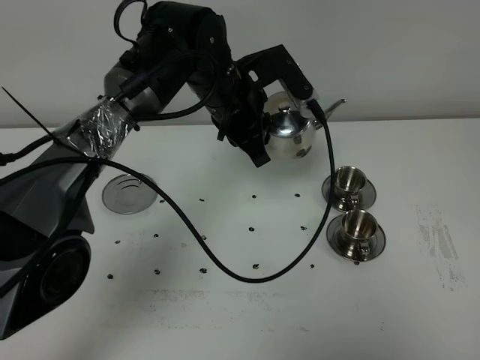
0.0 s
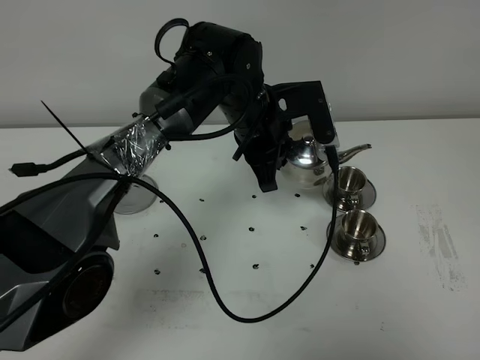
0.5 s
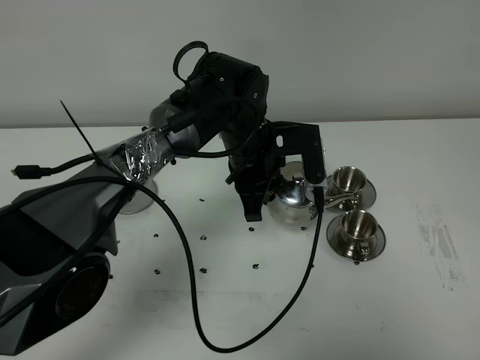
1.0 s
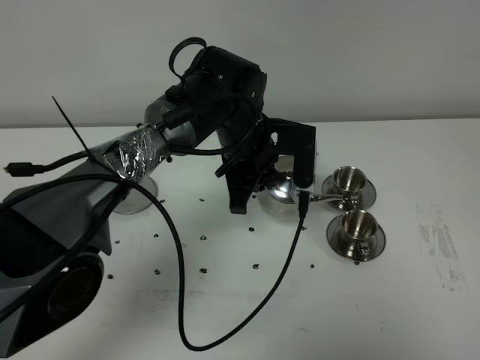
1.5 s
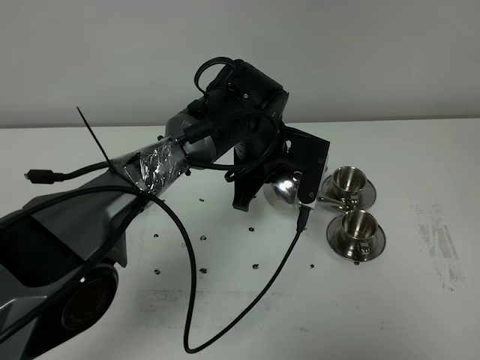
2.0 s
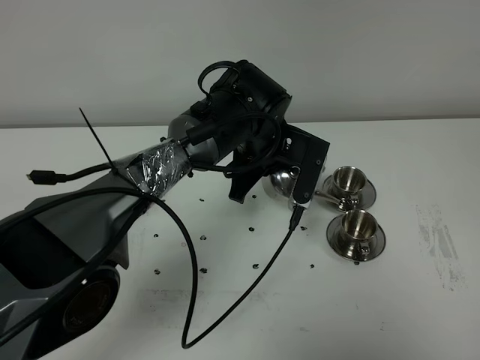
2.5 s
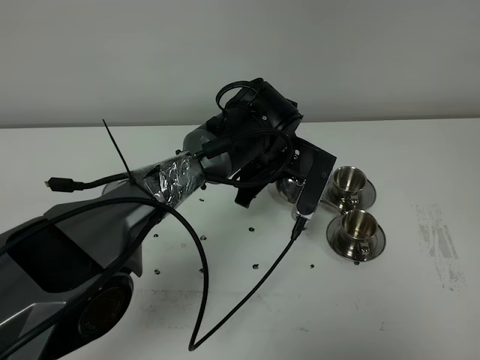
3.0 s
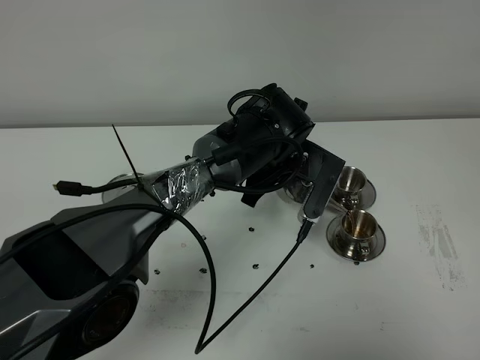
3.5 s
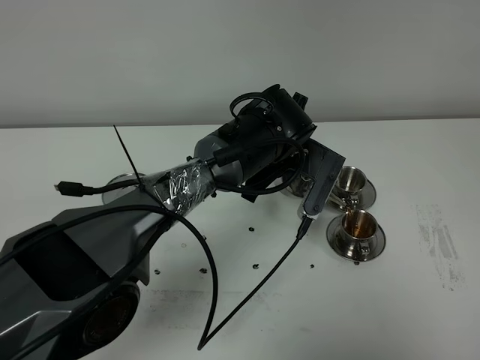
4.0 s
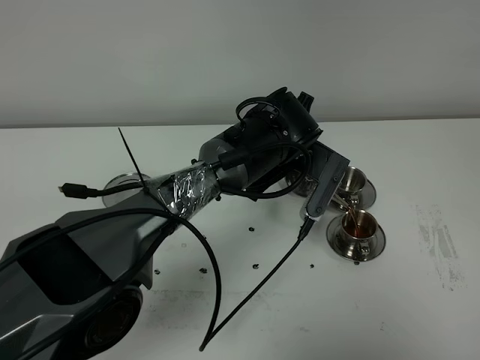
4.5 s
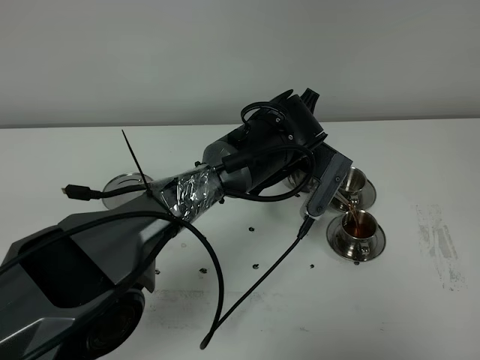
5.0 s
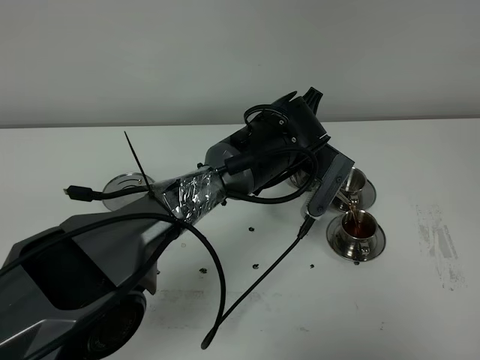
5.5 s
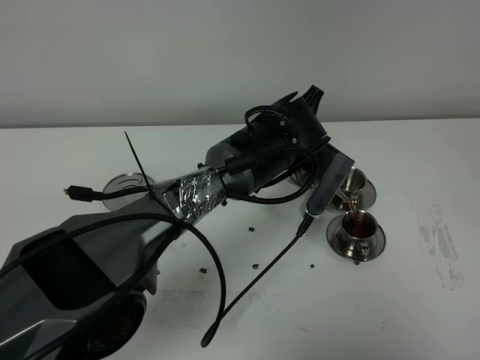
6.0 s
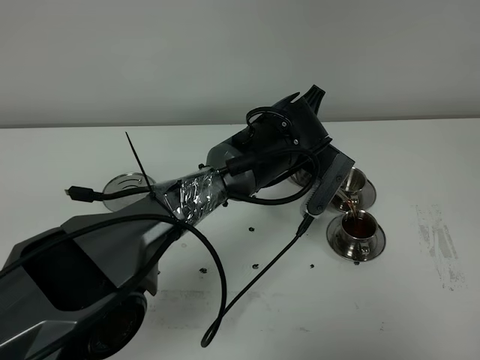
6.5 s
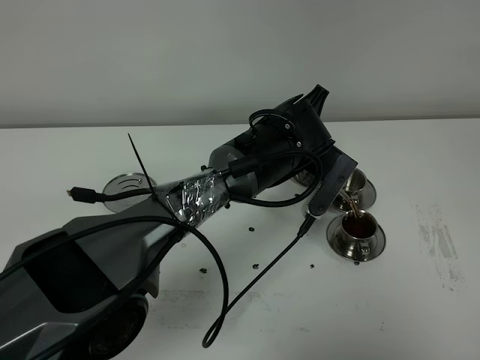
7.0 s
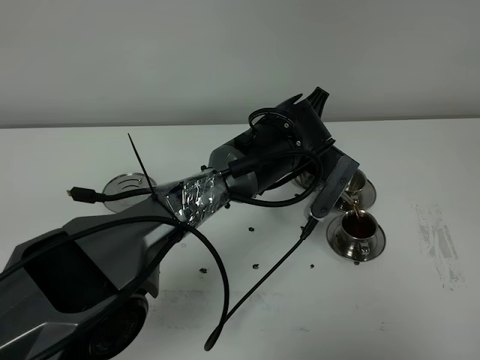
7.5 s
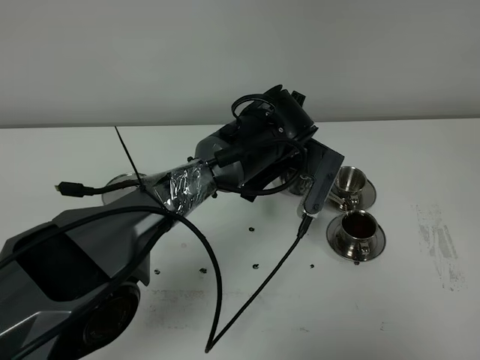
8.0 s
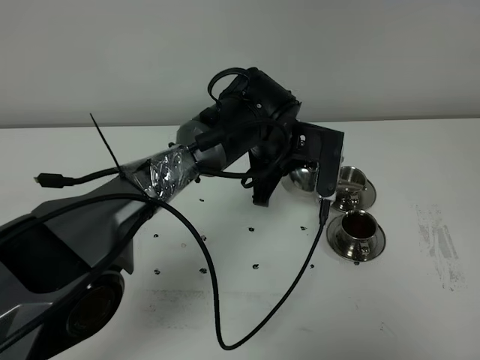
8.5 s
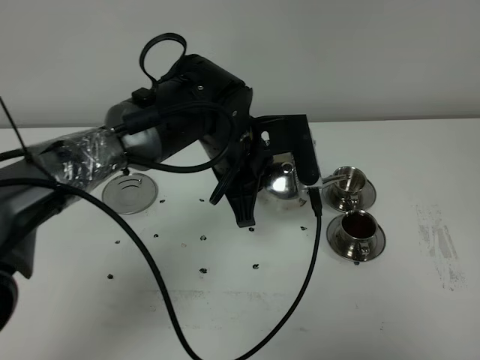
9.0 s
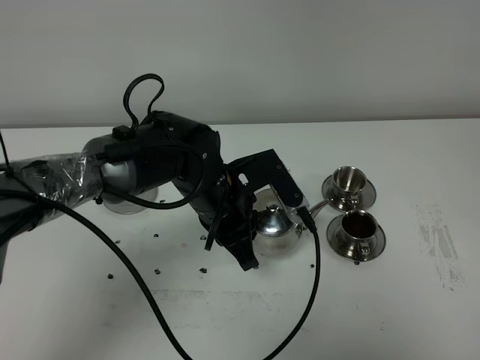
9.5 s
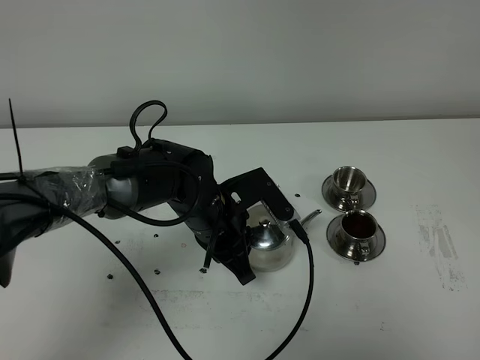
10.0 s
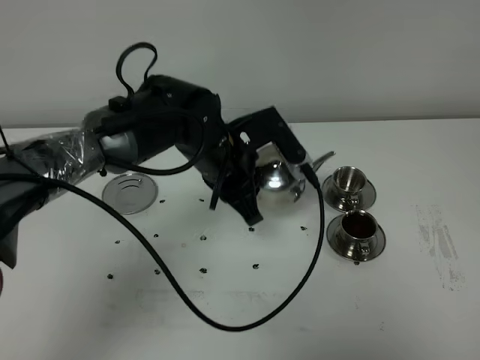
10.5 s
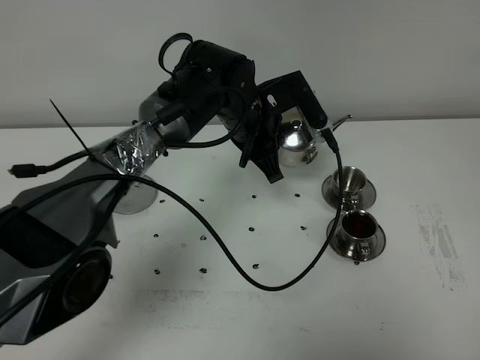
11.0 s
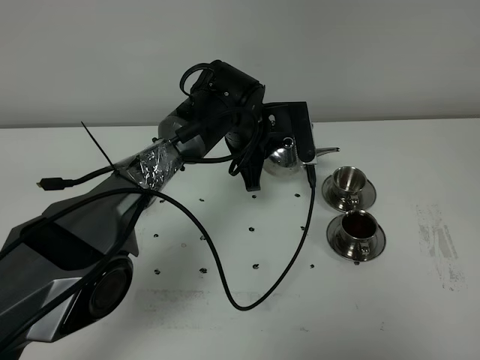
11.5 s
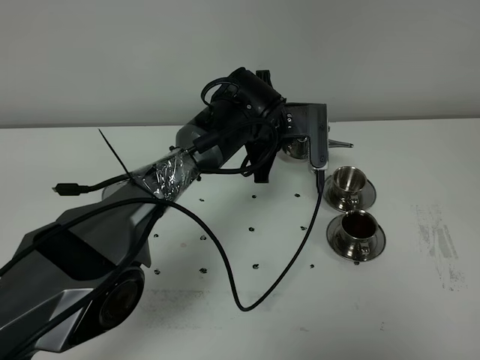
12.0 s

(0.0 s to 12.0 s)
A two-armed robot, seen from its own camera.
Task of the whole recording: grasp the stainless steel teapot and pour the tea into the two stainless steel teacups one by one, put the stainless steel teapot back in its original place.
Step, 0.0 s - 8.0 s: Pour tea into the teacup with the left gripper.
0.0 s - 2.0 s: The left gripper moves downward, some 5 cm.
4.0 s - 8.0 s: The grippers move only a little.
8.0 s - 10.0 s: The left gripper moves to the left and backward, roughly 10 cm.
10.0 s - 12.0 s: The left gripper goes approximately 15 cm forward and to the right.

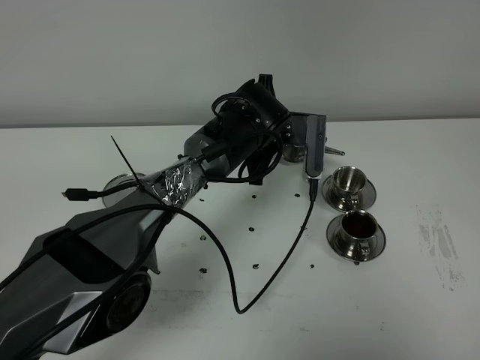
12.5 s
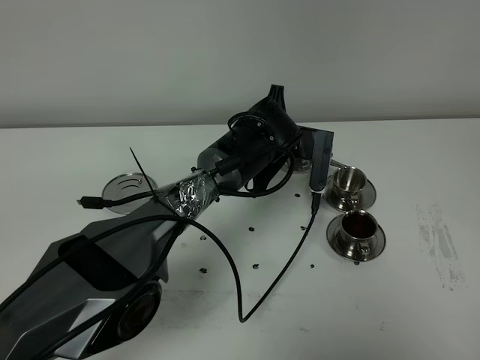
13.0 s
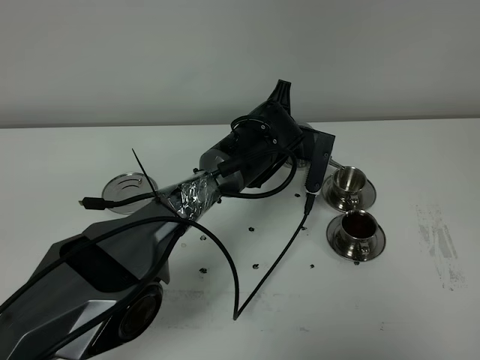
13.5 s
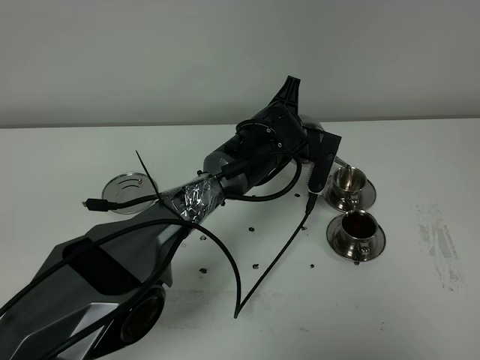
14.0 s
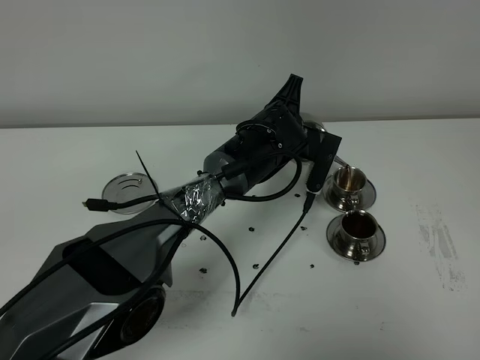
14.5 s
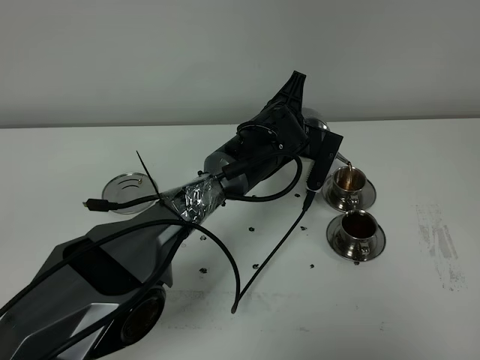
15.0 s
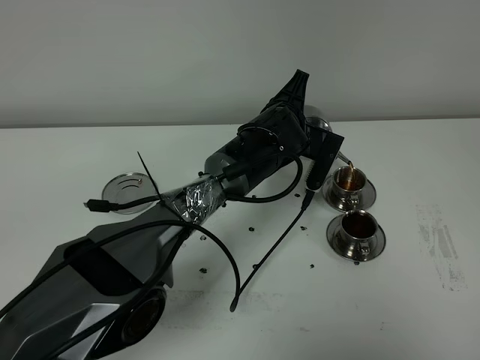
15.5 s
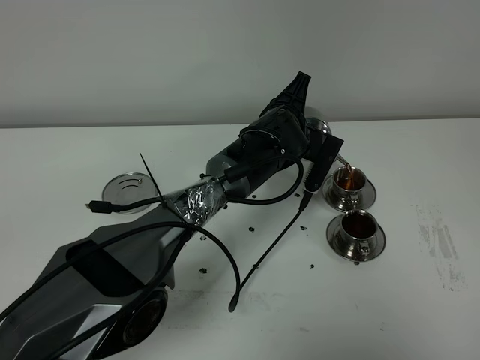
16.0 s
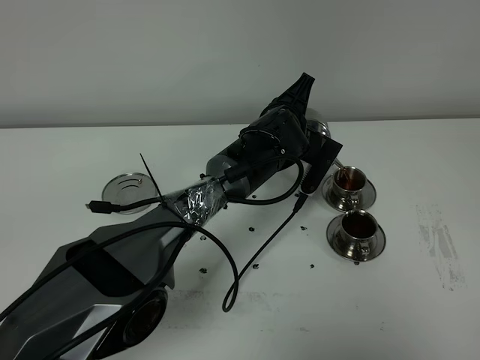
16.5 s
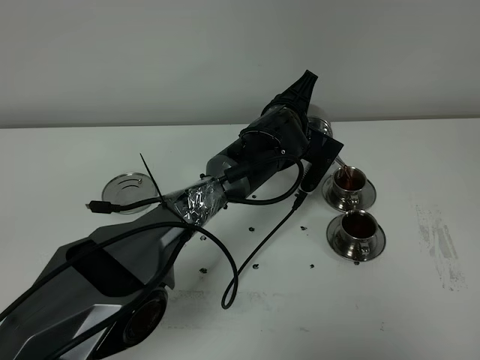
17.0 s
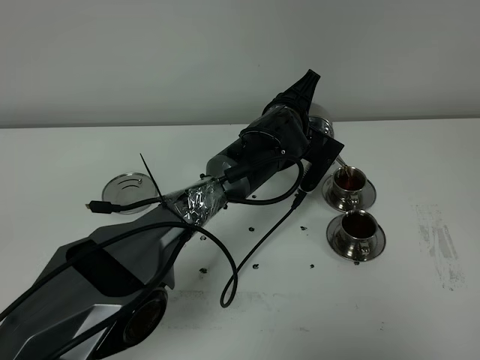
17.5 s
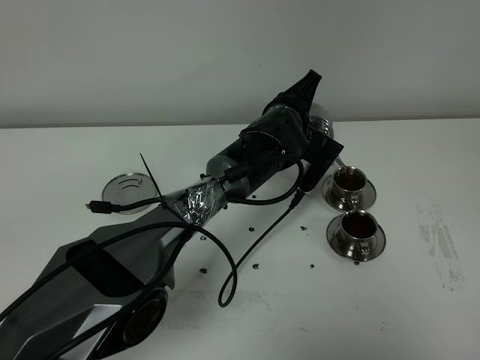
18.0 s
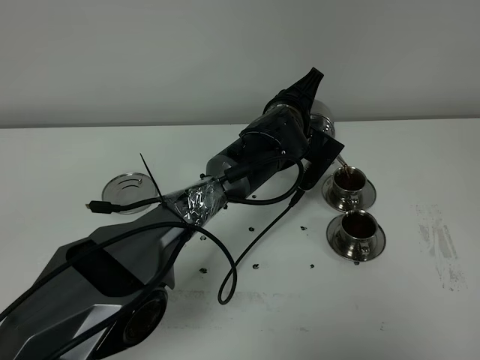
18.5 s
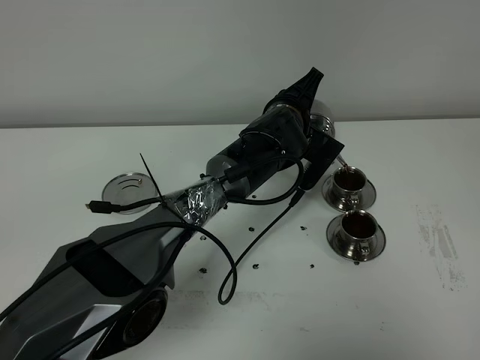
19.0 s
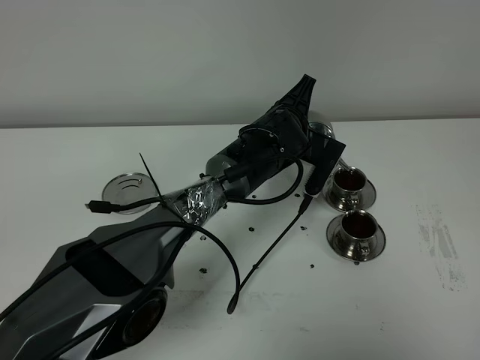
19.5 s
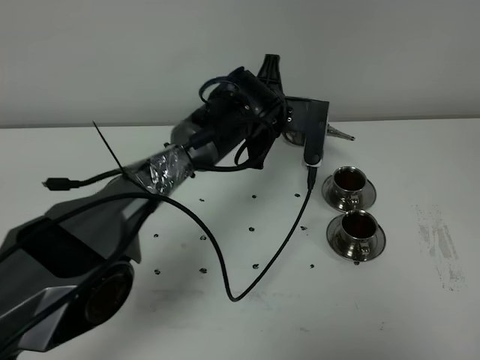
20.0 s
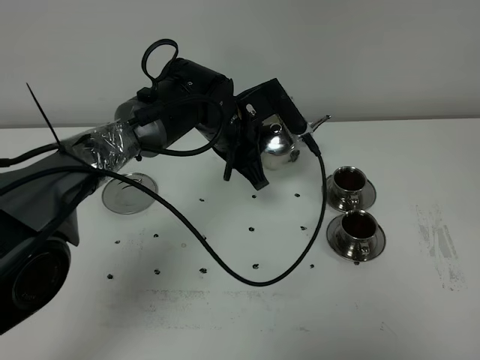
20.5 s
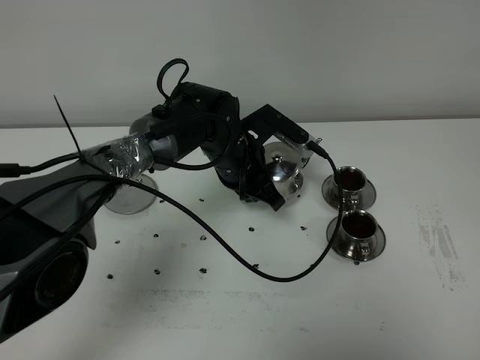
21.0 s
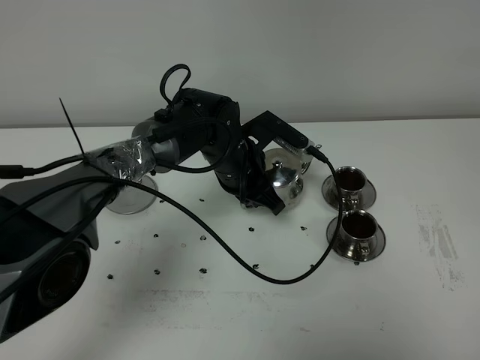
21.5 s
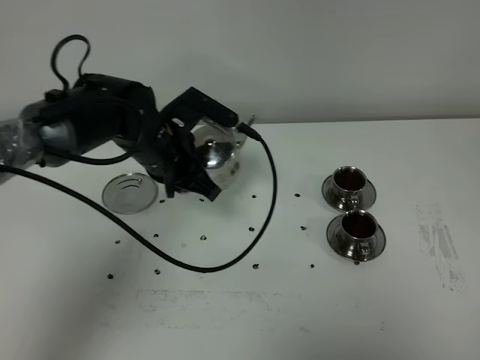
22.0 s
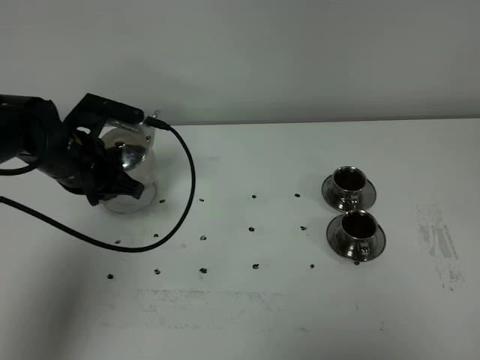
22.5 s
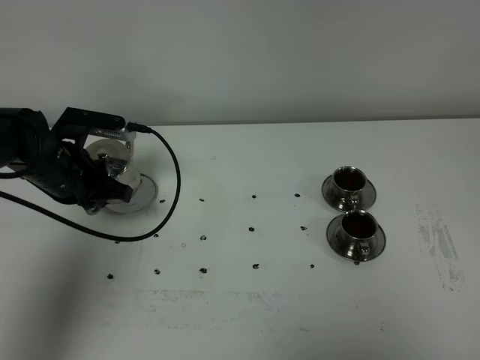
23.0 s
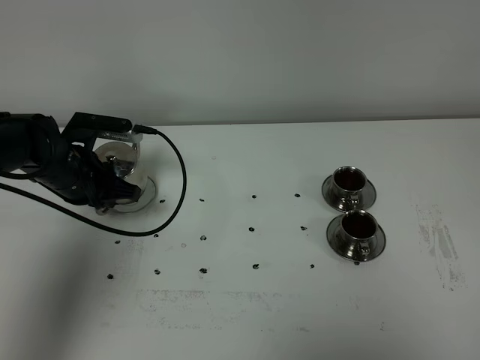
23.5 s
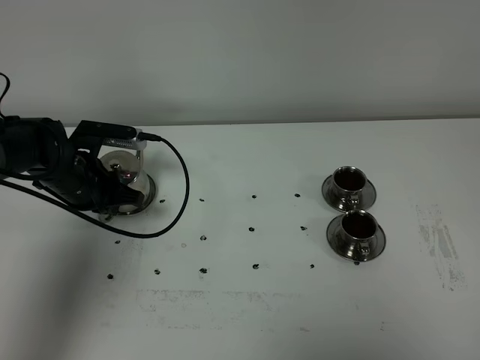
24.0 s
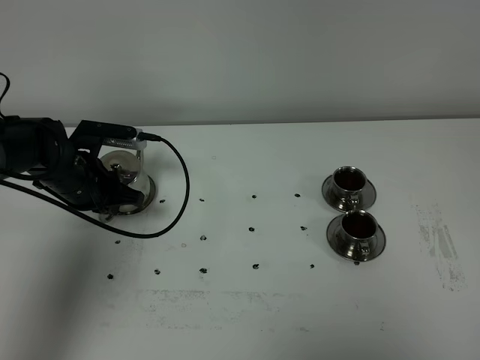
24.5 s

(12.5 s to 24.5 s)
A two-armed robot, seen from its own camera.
Task of the whole recording: grasp the stainless steel teapot and pour the tea into the two stainless steel teacups one by one, put the stainless steel teapot back in its original place.
Step, 12.5 s - 20.0 s: Pour tea into the teacup with the left gripper.
12.5 s - 14.5 s: The grippers stay close to where they were, moving slightly.
14.5 s - 18.5 s: The grippers make only small movements.
18.5 s - 20.5 s: The left gripper shifts some 10 cm to the left.
20.5 s - 22.5 s: The left gripper goes roughly 20 cm to the left.
22.5 s - 24.5 s: The left gripper travels downward by approximately 5 cm.

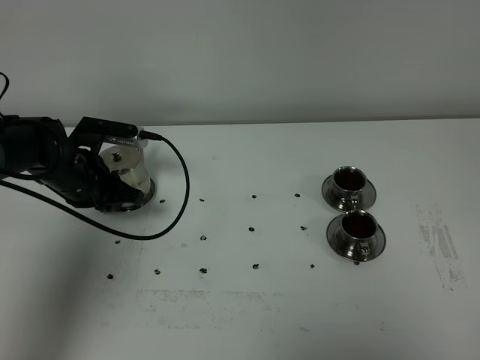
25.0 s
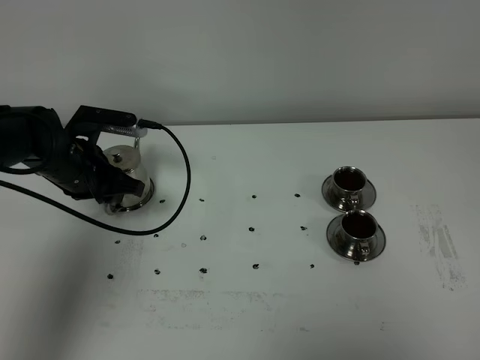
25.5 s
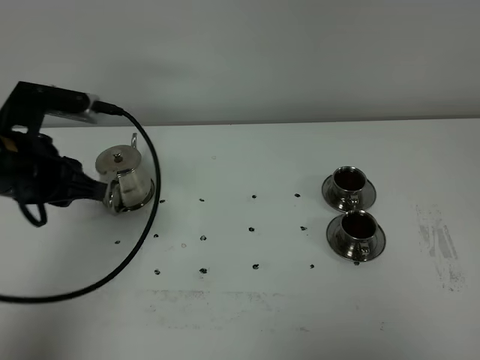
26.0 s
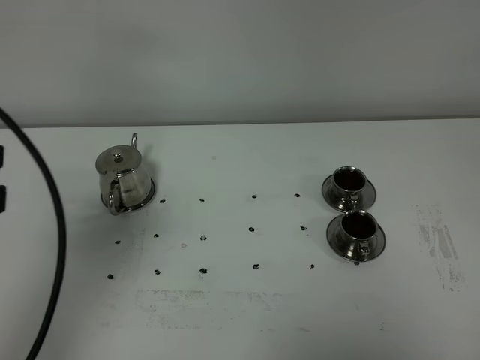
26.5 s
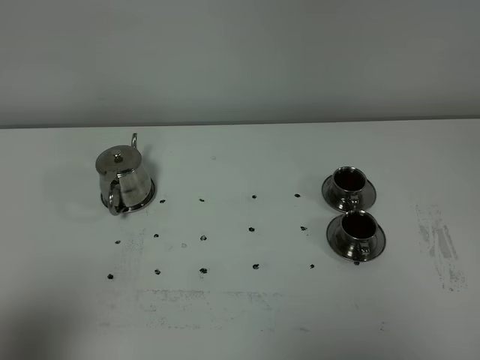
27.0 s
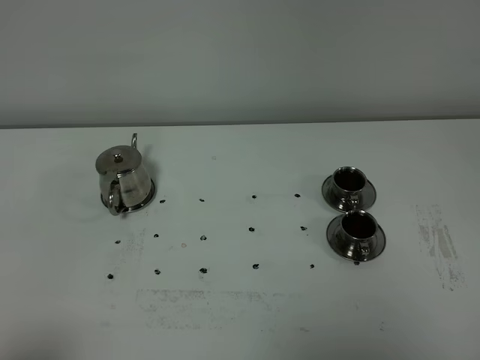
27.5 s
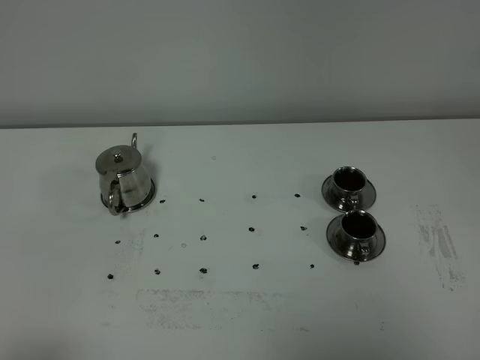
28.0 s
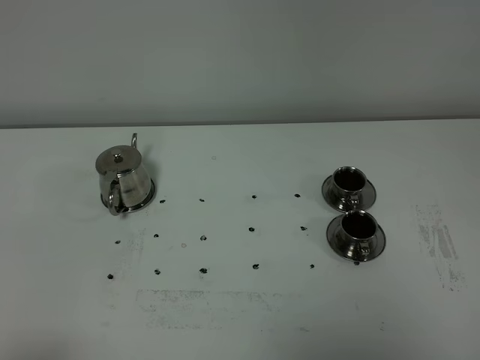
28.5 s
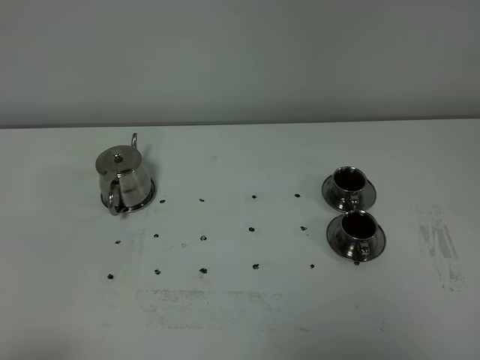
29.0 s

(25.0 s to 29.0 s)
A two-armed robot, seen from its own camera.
Task of the whole recording: grasp the stainless steel teapot and pour the tea into the two stainless steel teacups one by one, put the stainless steel teapot back in its original place.
25.0 s - 27.0 s: The left gripper moves backward and upward, roughly 40 cm.
27.0 s - 29.0 s: The left gripper heads downward and backward, covering some 10 cm.
